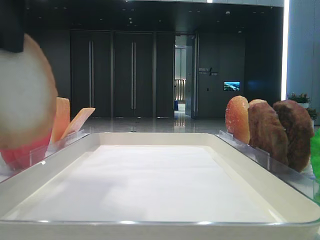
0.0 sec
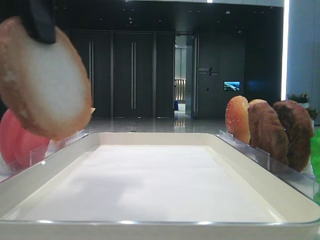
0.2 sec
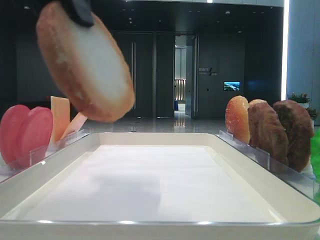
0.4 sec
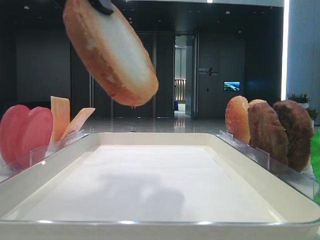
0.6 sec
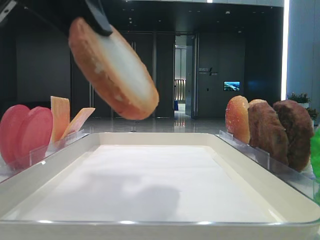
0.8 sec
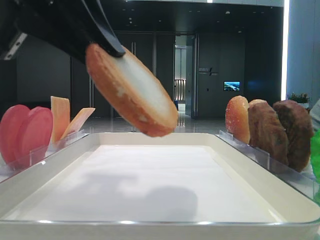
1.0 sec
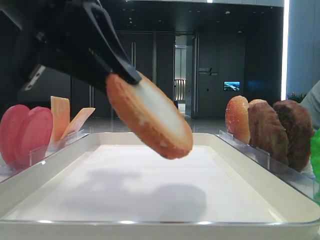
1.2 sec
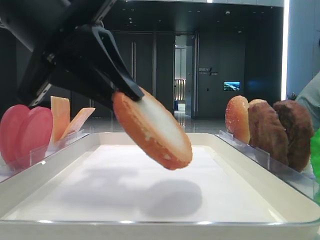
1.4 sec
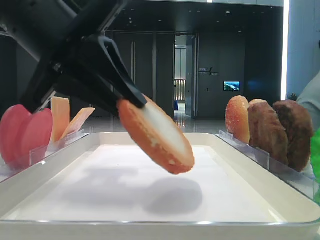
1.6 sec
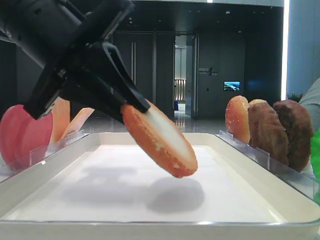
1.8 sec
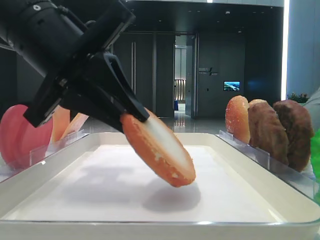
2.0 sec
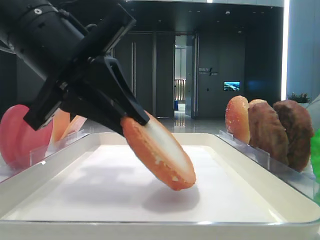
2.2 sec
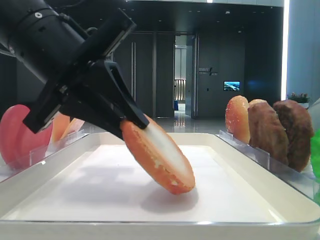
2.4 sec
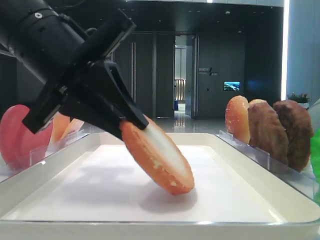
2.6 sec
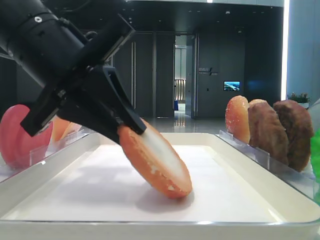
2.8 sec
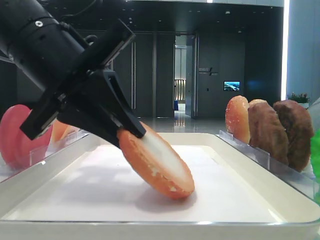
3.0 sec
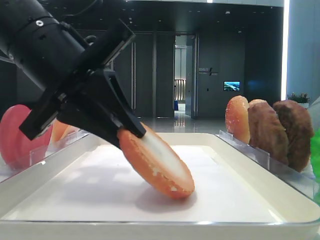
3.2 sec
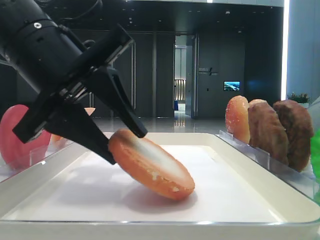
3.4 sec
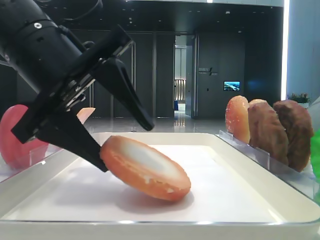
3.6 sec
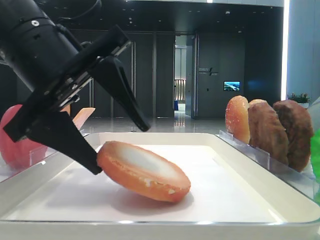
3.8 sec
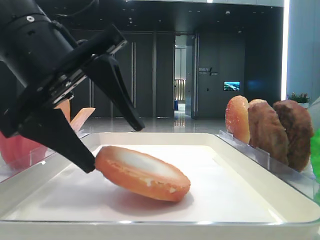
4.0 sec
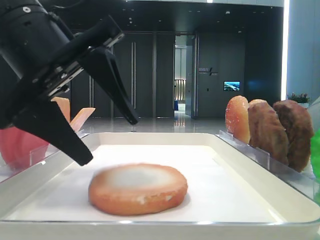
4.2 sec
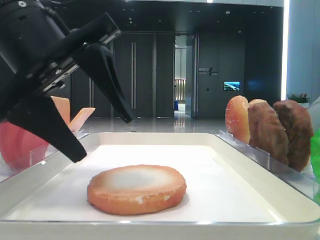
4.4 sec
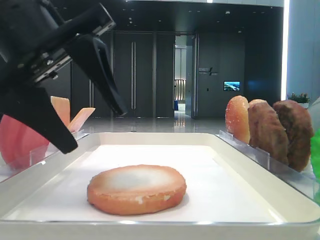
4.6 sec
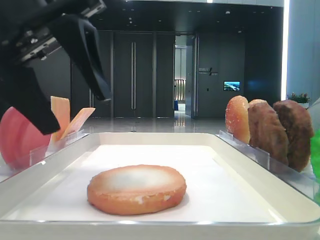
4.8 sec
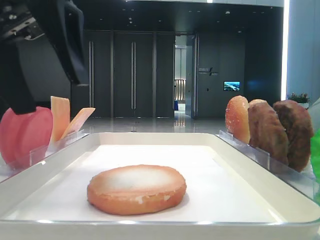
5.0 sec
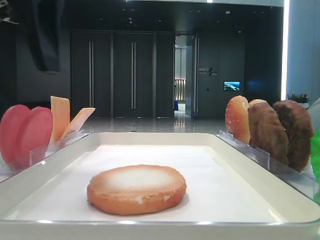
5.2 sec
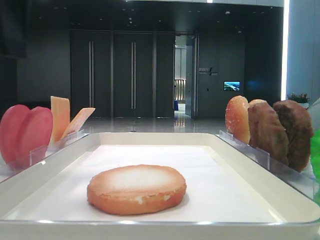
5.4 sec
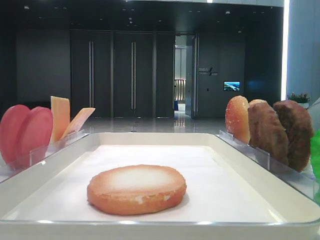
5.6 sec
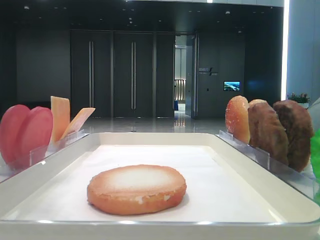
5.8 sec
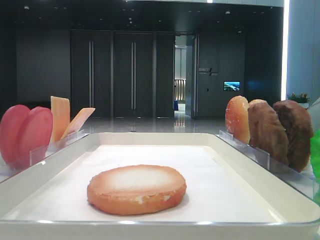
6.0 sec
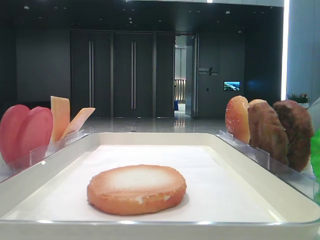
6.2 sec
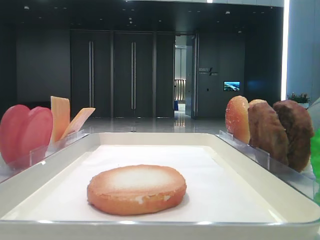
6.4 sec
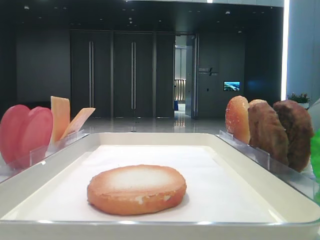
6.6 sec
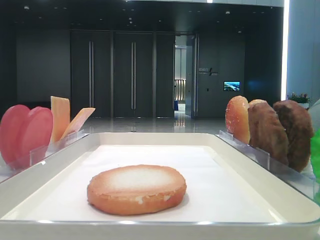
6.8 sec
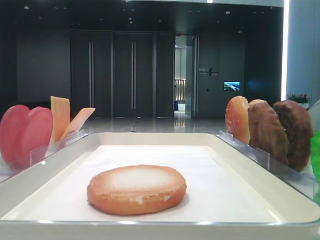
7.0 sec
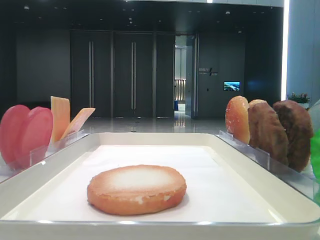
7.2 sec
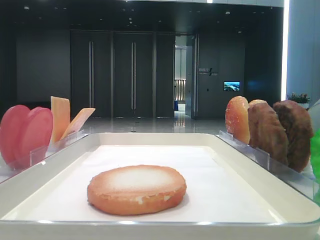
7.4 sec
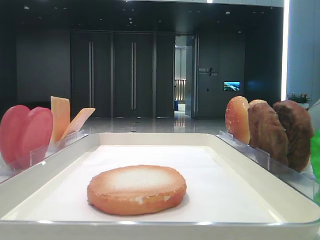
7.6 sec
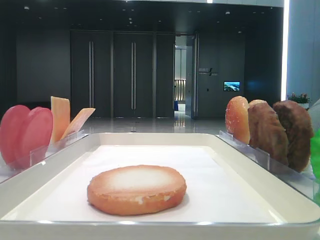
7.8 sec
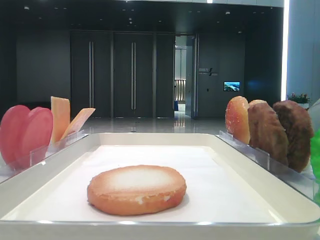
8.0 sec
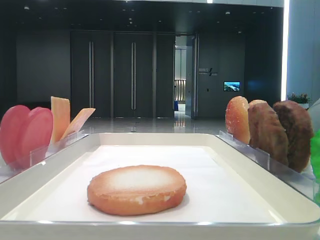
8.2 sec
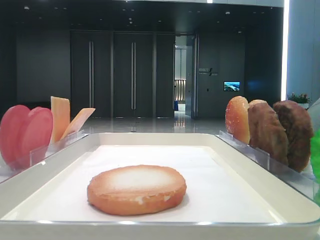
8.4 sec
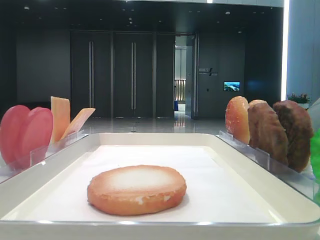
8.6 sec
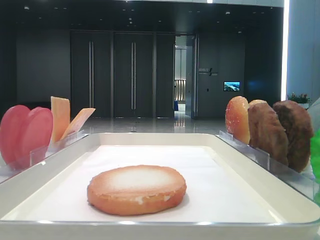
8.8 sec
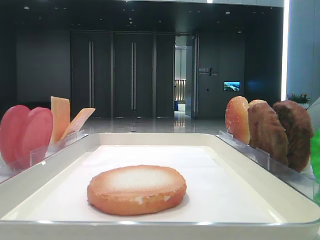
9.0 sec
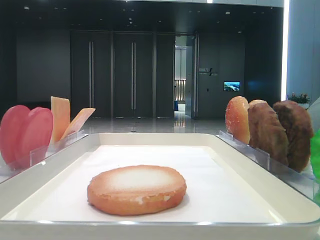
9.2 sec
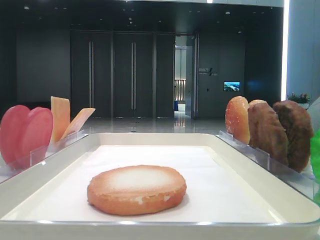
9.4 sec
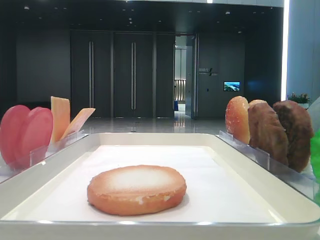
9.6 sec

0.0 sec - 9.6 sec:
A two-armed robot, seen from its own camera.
Step, 0.2 sec - 4.0 sec: Place the bottom bread slice on the tray with the left hand.
0.0 sec - 1.6 sec: The left gripper goes some 10 cm downward.
1.6 sec - 3.2 sec: The grippers move only a little.
3.2 sec - 4.8 sec: The left gripper goes roughly 5 cm upward, and opens up.
4.8 sec - 6.4 sec: The left gripper heads to the left and upward, covering roughly 15 cm.

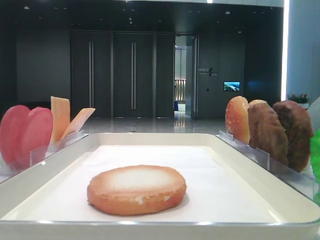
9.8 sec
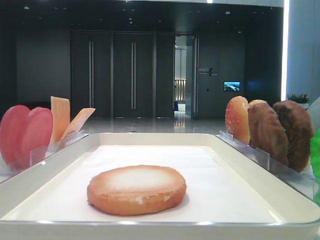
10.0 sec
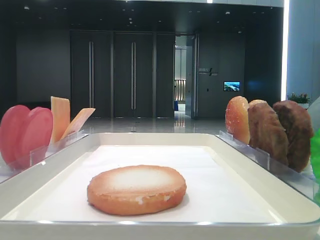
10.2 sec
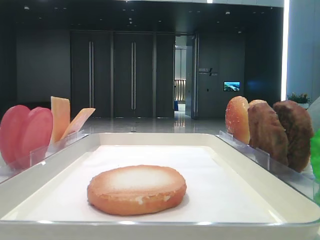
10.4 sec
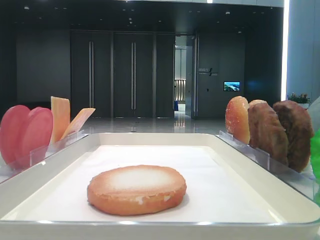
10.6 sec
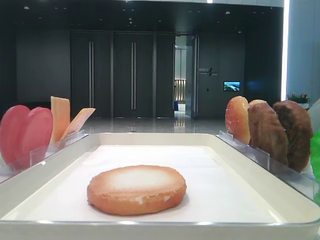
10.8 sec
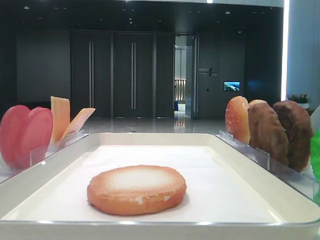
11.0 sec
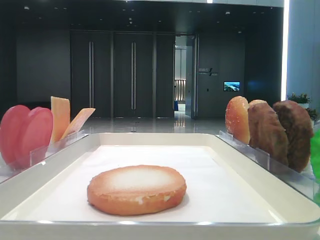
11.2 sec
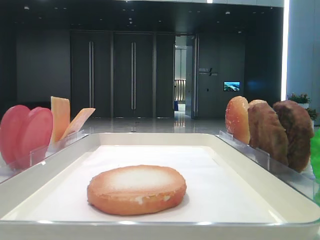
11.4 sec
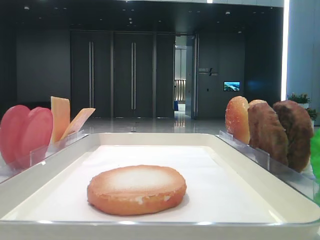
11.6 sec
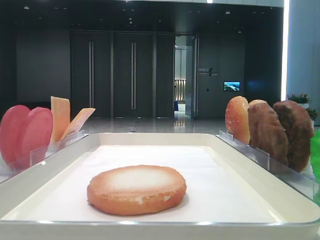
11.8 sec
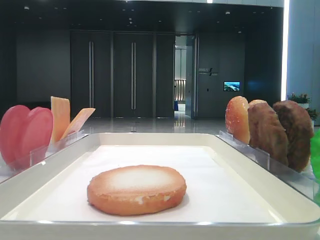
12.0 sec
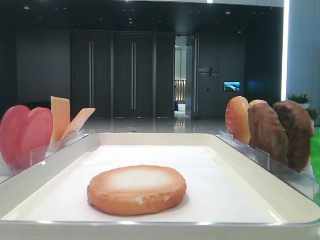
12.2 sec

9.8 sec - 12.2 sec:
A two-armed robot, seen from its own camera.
9.8 sec - 12.2 sec: Both grippers stay about where they are.

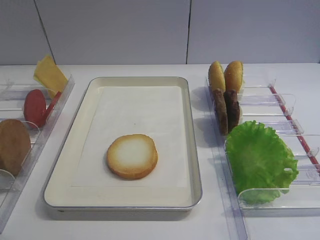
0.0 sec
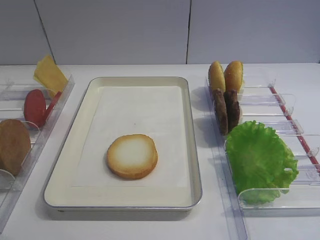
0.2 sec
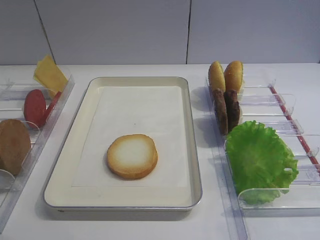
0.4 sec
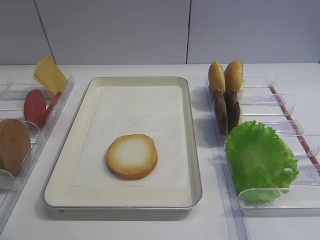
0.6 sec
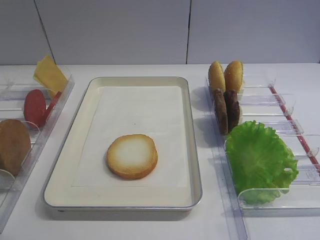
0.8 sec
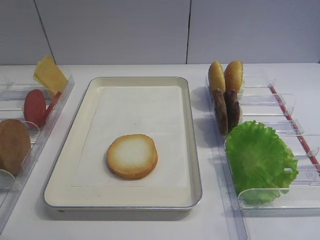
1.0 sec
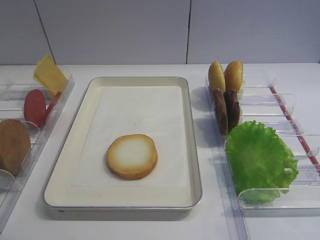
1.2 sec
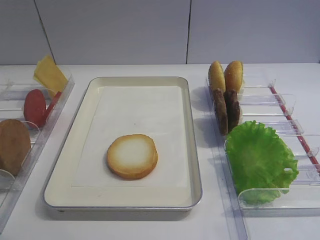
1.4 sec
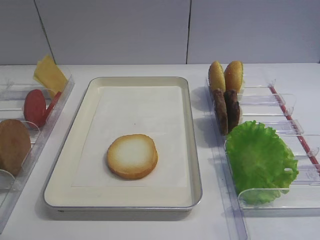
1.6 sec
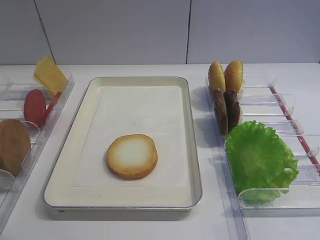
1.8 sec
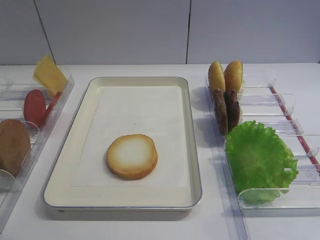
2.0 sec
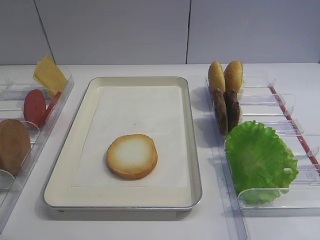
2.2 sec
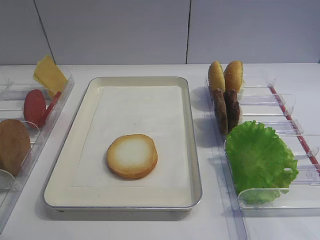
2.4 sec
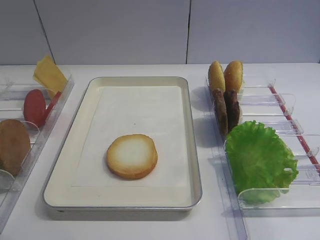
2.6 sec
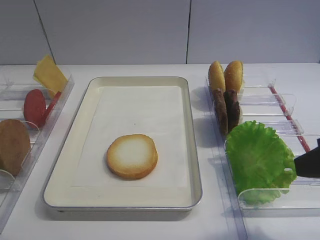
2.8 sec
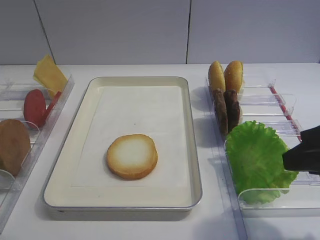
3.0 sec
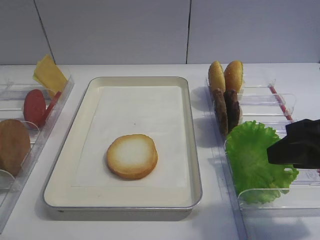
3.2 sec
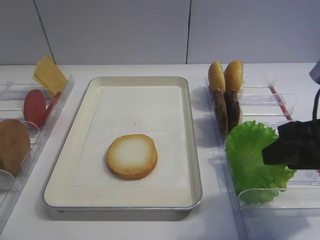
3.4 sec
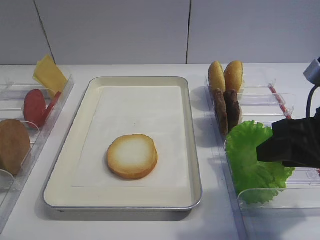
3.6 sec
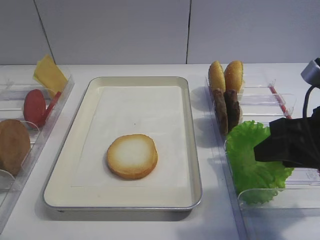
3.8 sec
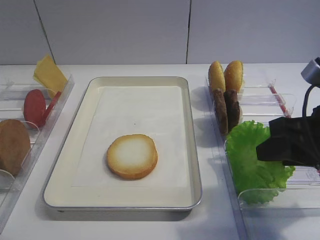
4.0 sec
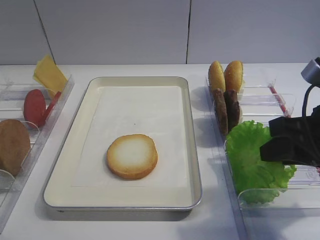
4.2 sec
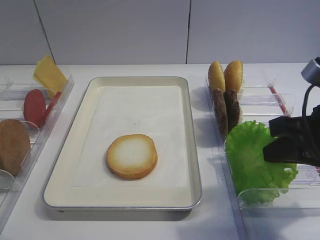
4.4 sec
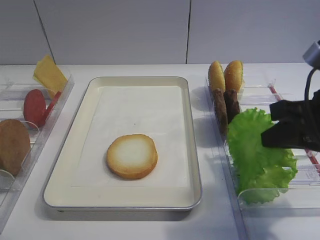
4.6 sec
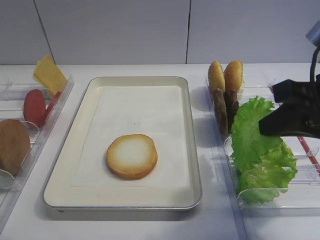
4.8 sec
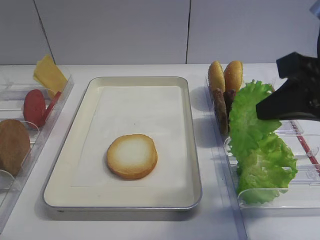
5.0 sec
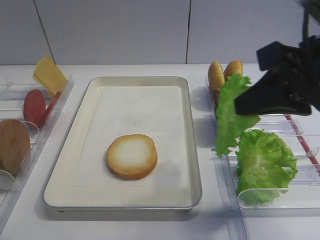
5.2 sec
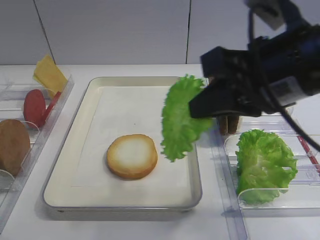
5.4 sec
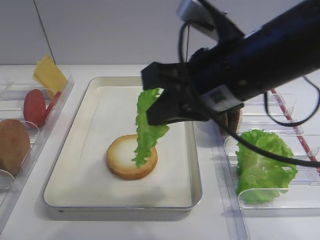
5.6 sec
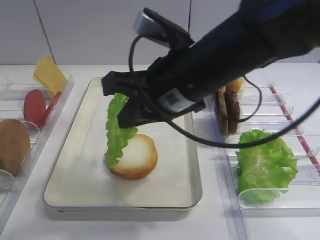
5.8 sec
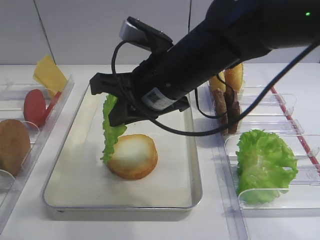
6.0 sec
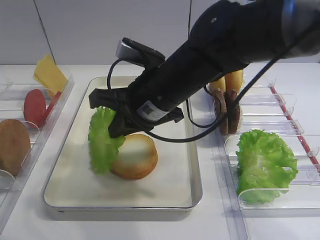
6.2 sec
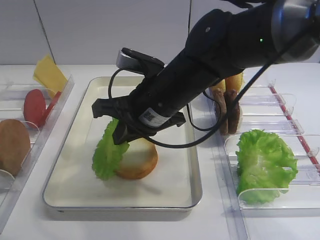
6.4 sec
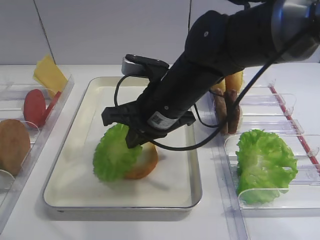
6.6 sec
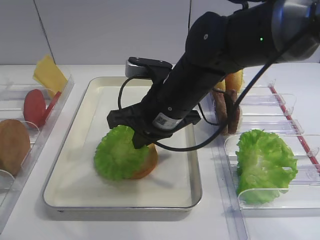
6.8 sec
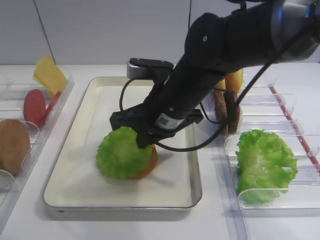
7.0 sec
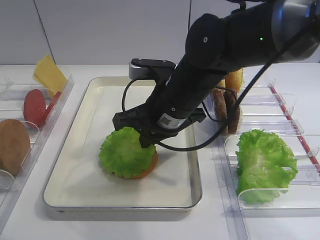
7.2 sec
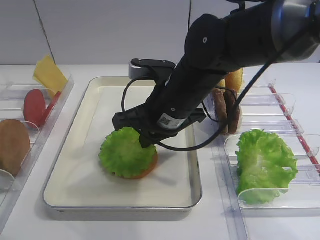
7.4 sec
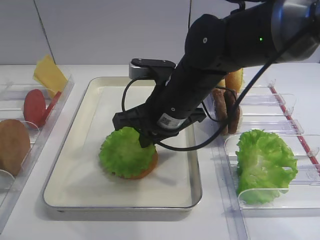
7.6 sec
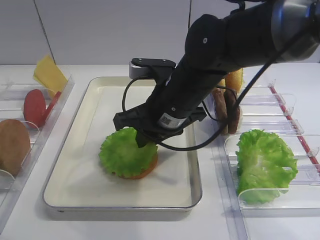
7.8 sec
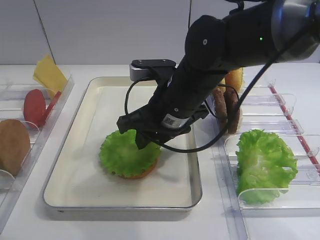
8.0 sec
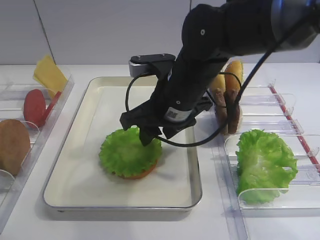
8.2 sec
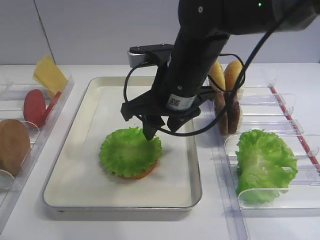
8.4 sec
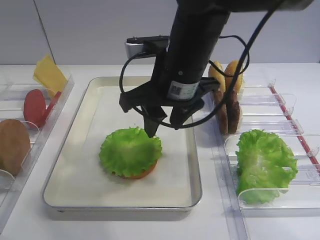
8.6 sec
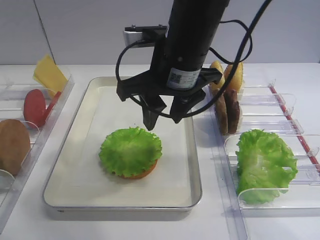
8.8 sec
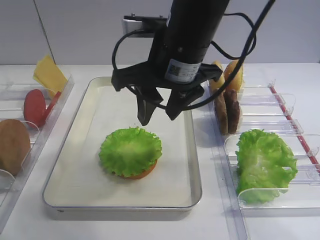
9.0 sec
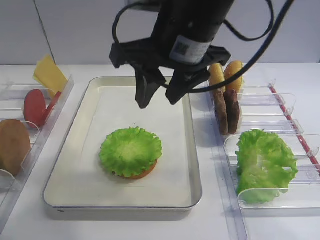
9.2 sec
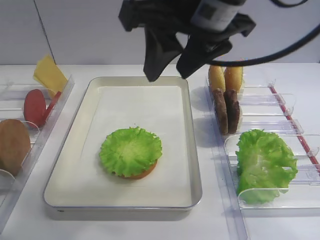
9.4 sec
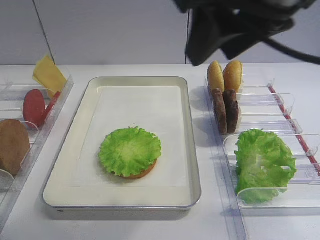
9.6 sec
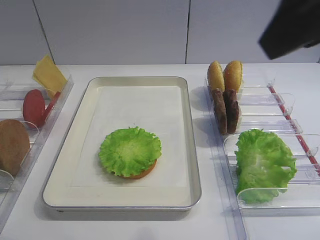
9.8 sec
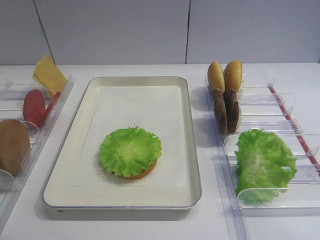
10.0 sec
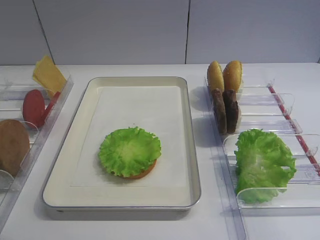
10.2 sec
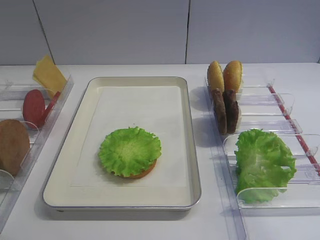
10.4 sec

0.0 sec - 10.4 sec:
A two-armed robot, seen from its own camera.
Step, 0.0 sec - 5.0 sec: Pick up the lettuce leaf with the right gripper.
Step, 5.4 sec - 9.2 sec: Place the lettuce leaf on the bread slice with the right gripper.
1.4 sec - 3.0 sec: The right gripper moves forward, roughly 15 cm.
3.0 sec - 4.4 sec: The right gripper closes up.
4.4 sec - 6.0 sec: The right gripper heads to the left, covering roughly 20 cm.
7.4 sec - 9.0 sec: The right gripper travels upward by some 10 cm, and opens its fingers.
9.0 sec - 10.4 sec: The right gripper is displaced backward and to the right by some 35 cm.
